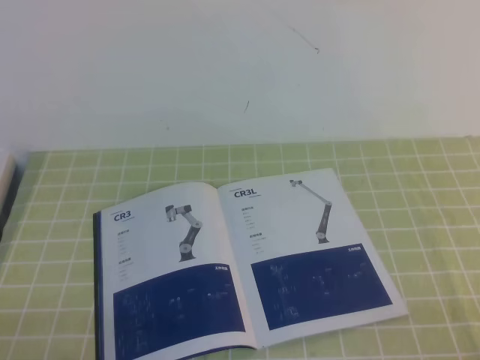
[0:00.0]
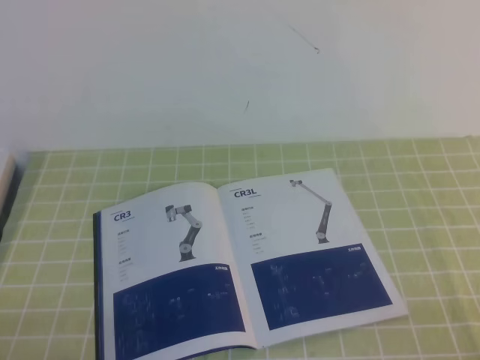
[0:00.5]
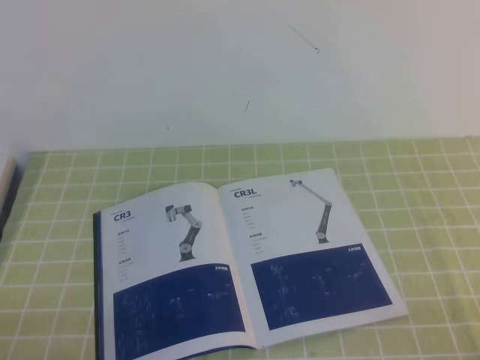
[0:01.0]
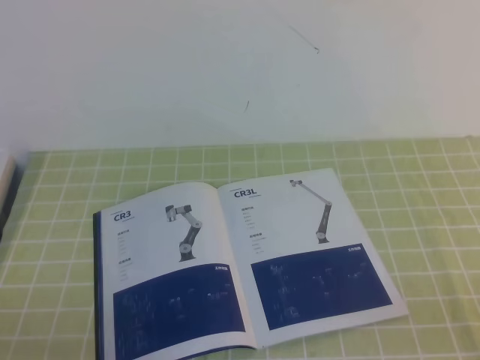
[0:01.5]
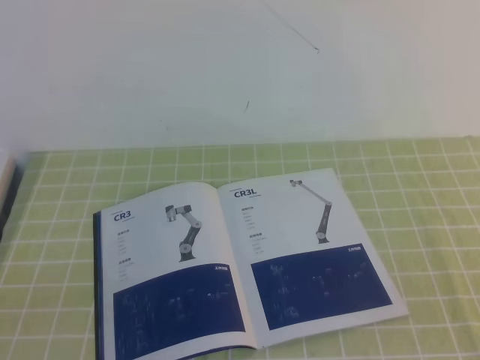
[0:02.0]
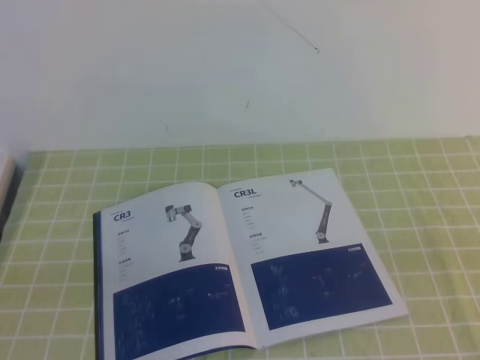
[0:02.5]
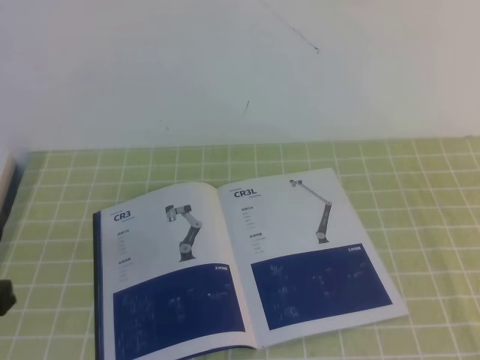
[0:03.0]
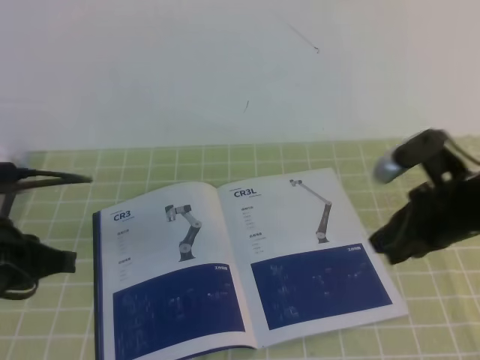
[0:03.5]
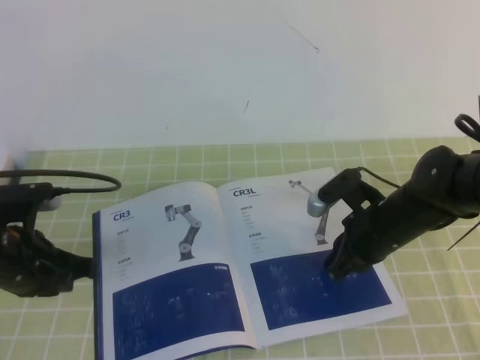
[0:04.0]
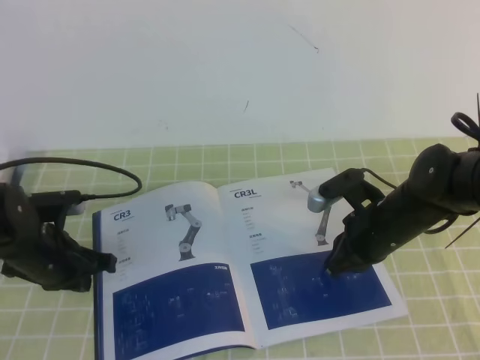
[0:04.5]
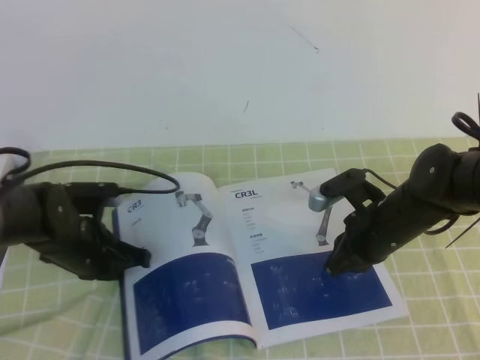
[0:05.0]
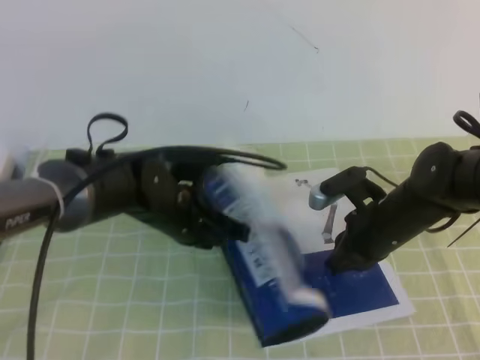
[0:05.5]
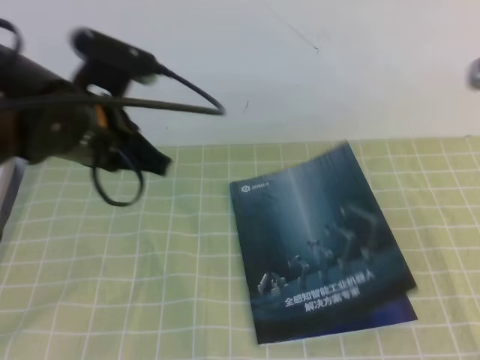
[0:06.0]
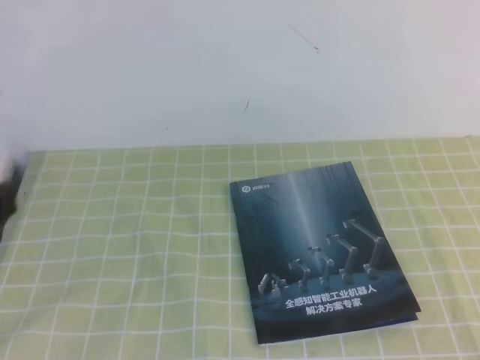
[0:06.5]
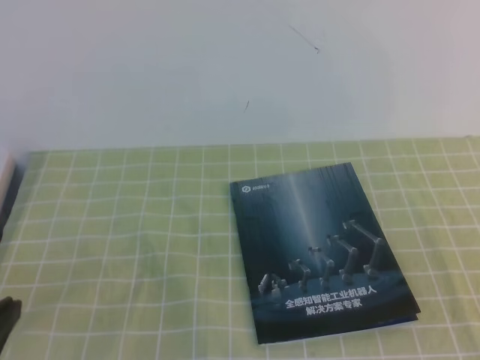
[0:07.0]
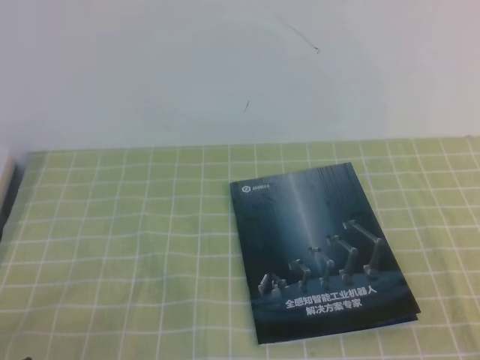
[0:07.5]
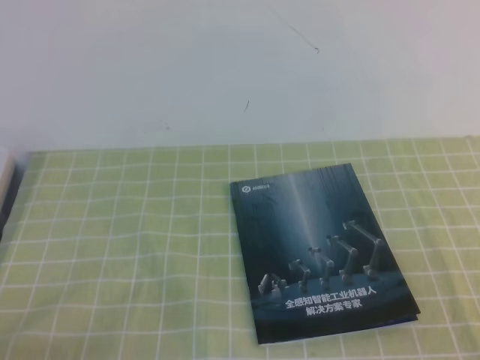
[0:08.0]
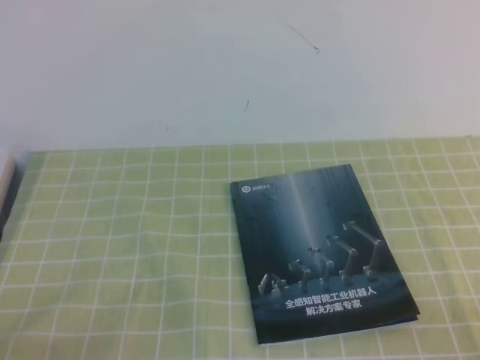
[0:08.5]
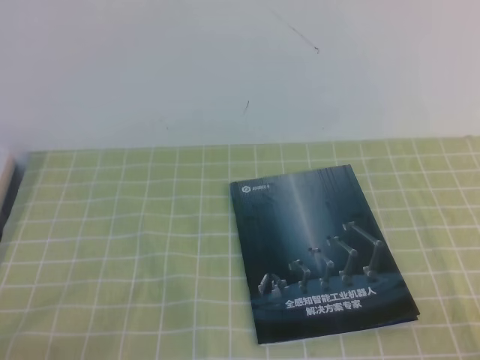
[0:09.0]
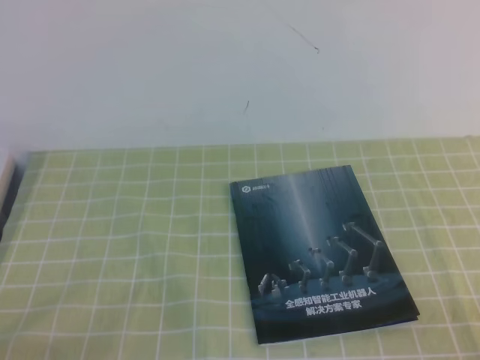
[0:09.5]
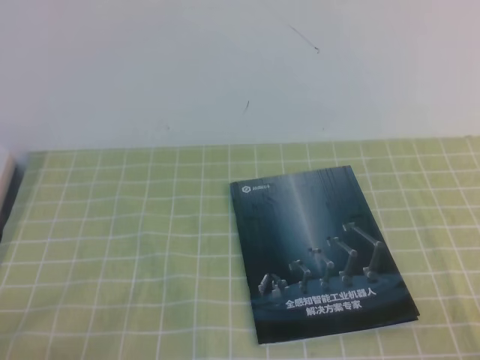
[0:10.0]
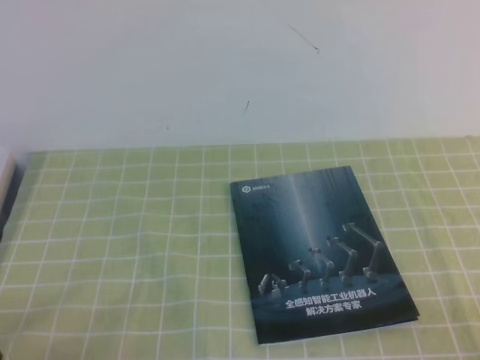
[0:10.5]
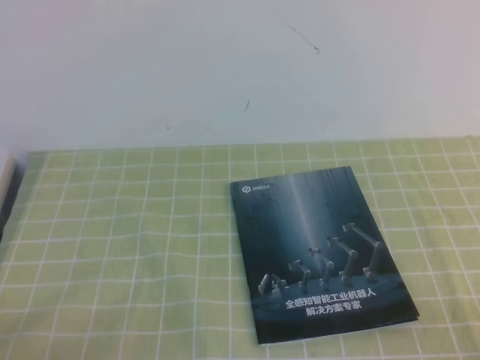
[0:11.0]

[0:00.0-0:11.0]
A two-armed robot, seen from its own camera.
Task of the whole recording: on the green tablecloth, hold the book with one hand and close it with the other.
Step, 0:00.0 to 0:11.0: Close the open book.
0:02.0 to 0:03.5: Both grippers travel together forward, some 20 cm.
0:03.5 to 0:05.5: The right gripper is displaced downward, to the left and forward by approximately 15 cm, while the left gripper moves to the right, forward and downward, roughly 20 cm.
0:05.5 to 0:07.5: The left gripper is displaced backward and to the left by about 30 cm, while the right gripper shifts approximately 35 cm backward and to the right.
